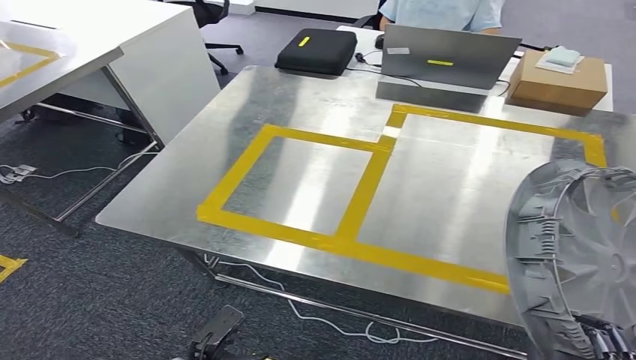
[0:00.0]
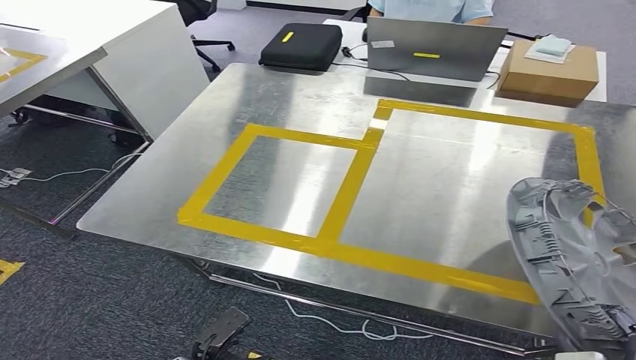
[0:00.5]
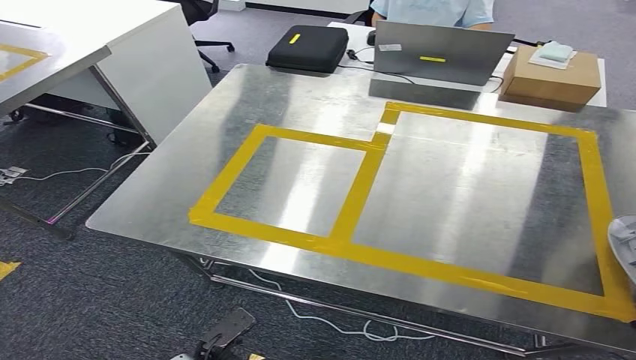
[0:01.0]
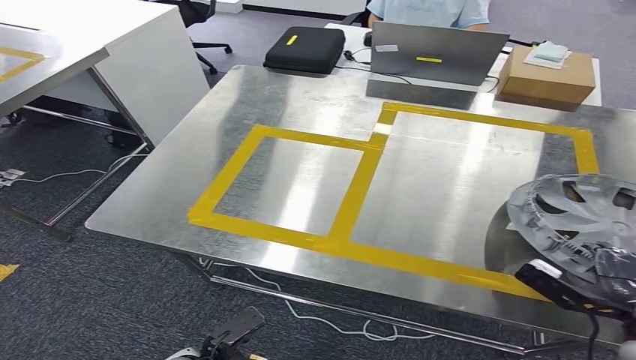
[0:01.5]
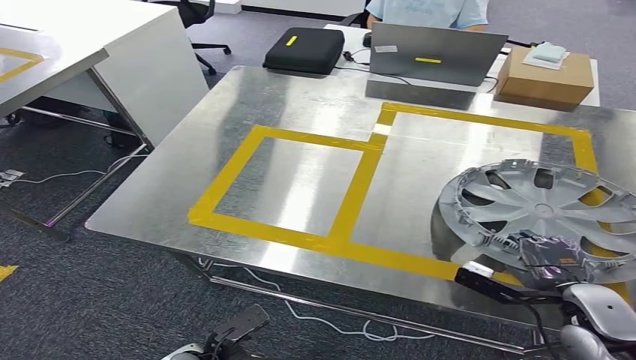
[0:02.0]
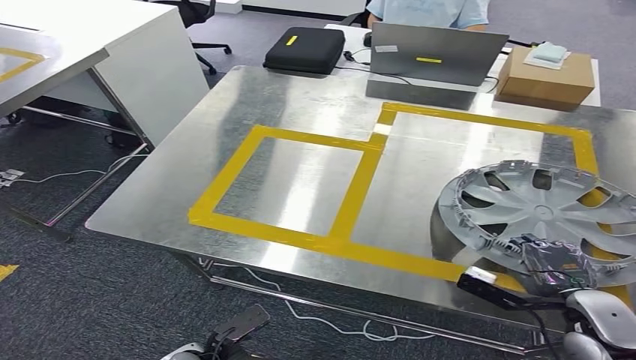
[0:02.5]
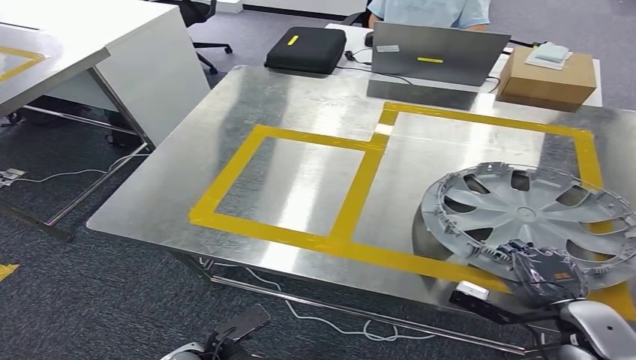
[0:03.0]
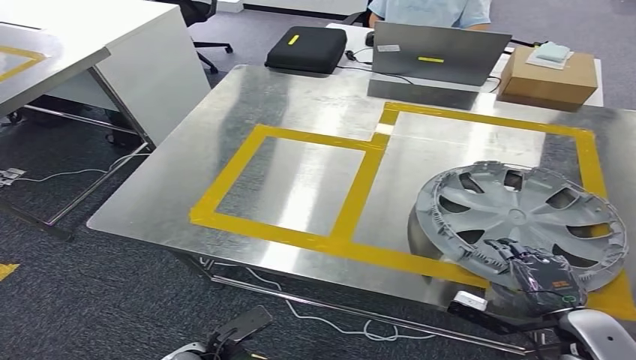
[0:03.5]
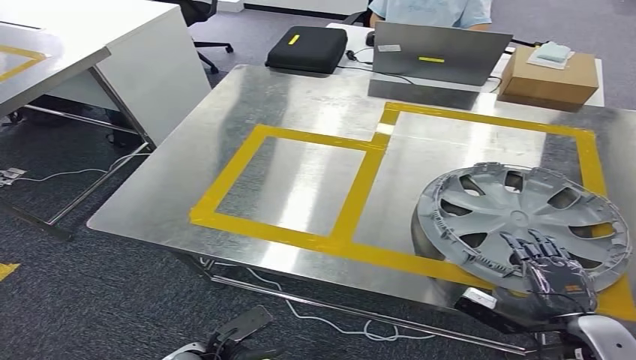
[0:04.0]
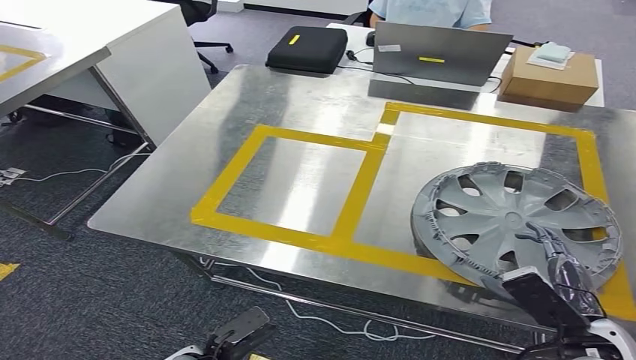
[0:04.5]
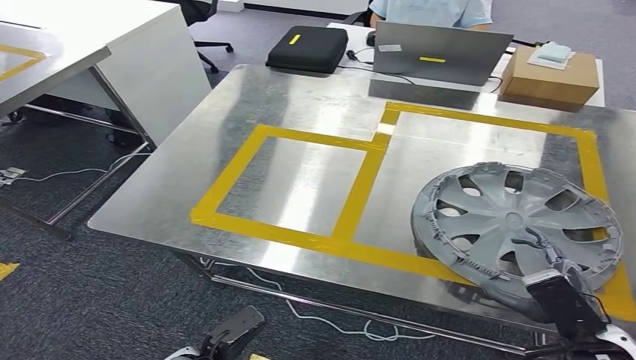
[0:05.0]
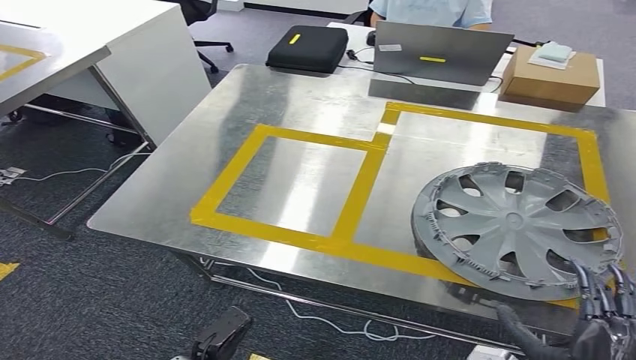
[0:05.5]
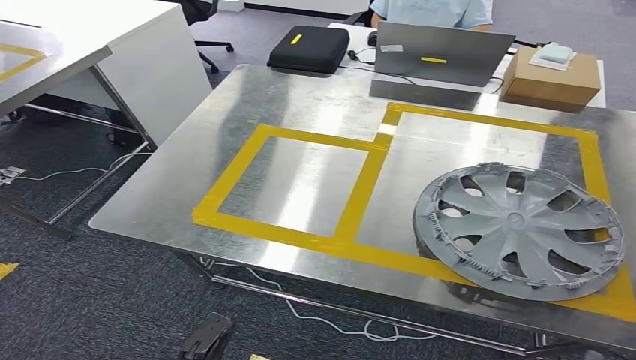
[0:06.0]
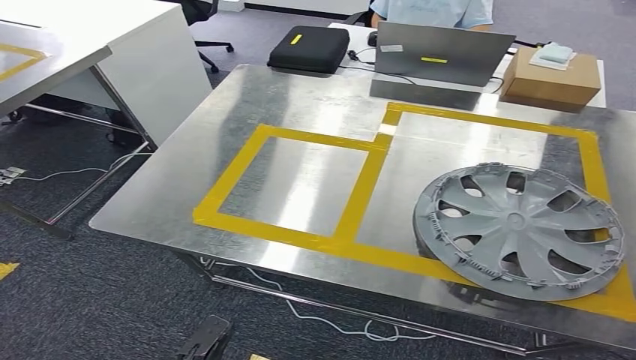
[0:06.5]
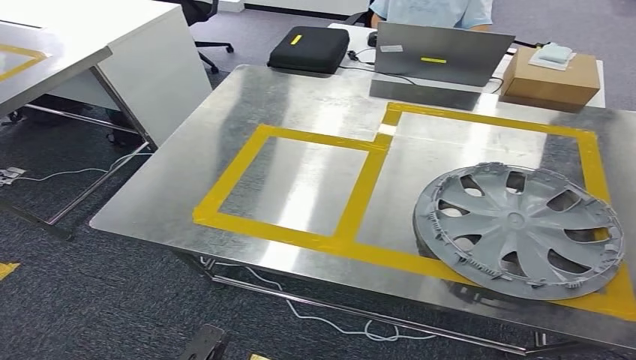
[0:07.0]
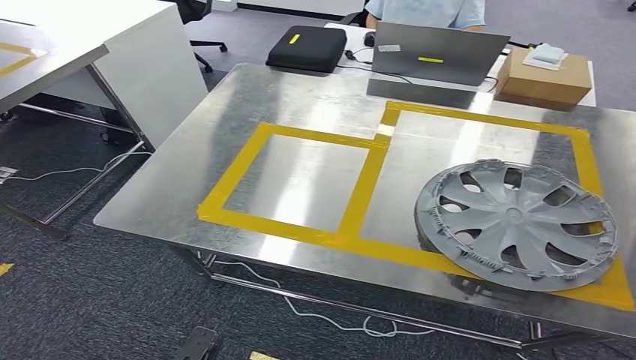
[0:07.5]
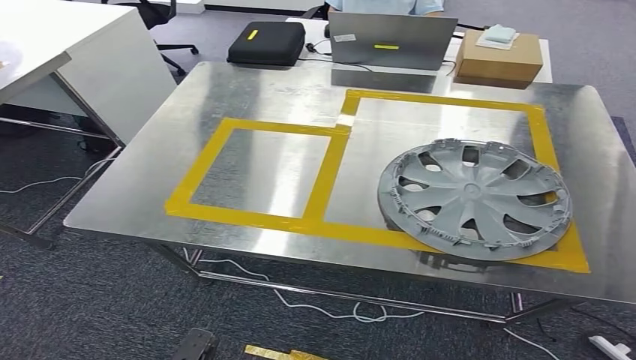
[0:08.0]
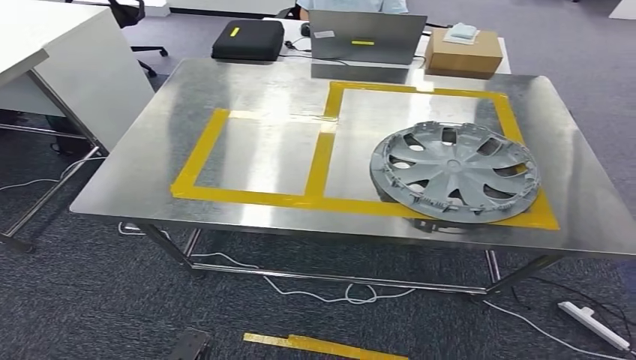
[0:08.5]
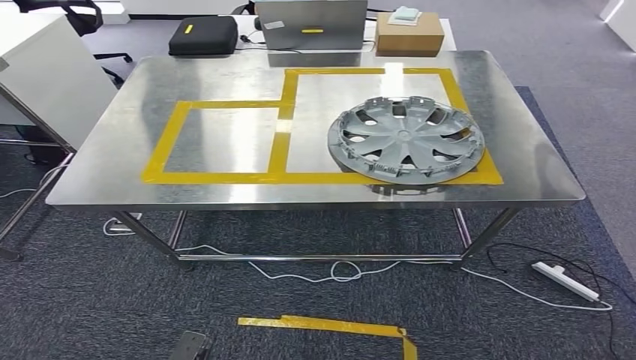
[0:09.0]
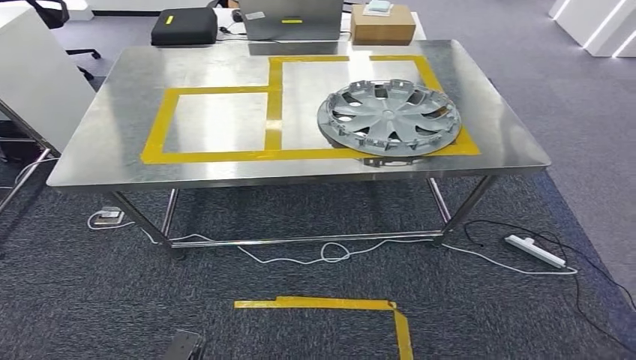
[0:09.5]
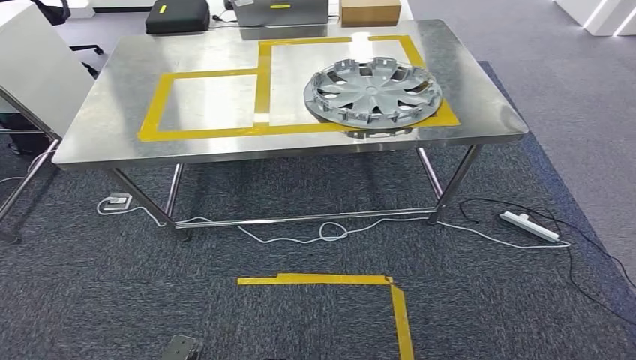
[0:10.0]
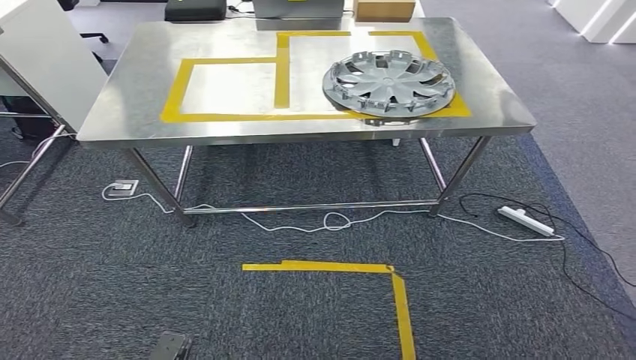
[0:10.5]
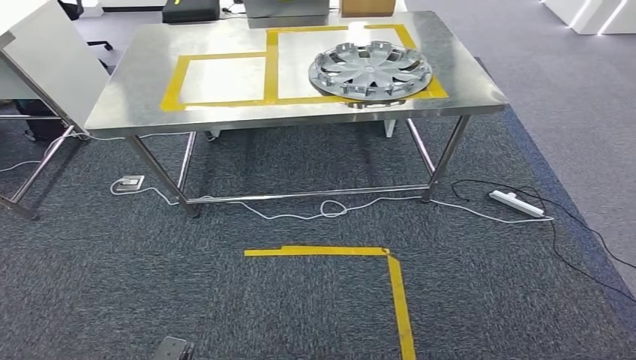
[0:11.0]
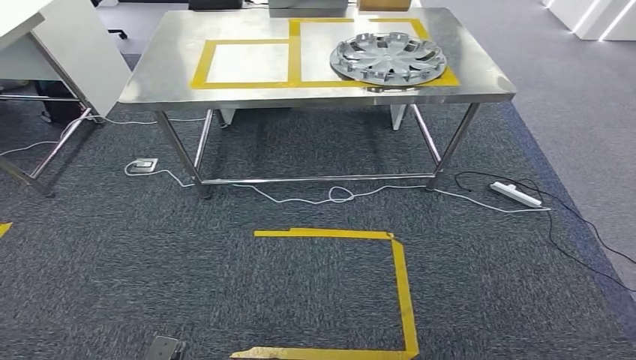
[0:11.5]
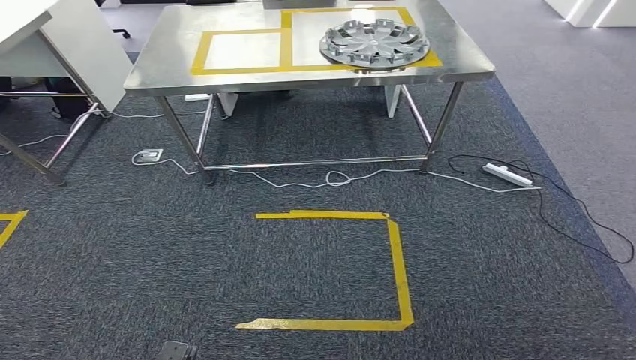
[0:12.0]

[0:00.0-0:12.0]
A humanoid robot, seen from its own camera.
Step, 0:00.0 to 0:11.0: Insert the small parts into the corresponding holes on the workbench.
0:02.0 to 0:04.0: There are only small adjustments of the hands.
0:04.0 to 0:06.0: The right hand travels backward by some 15 cm; the left hand ends up approximately 5 cm from where it was.

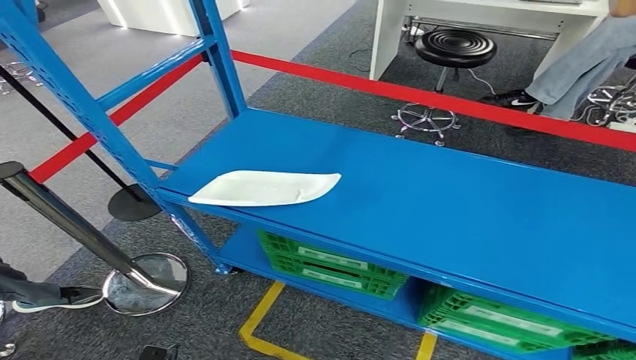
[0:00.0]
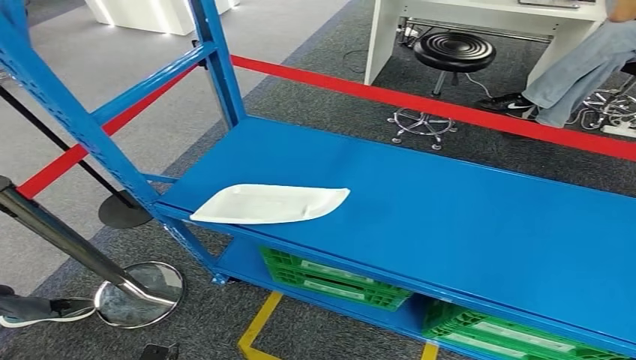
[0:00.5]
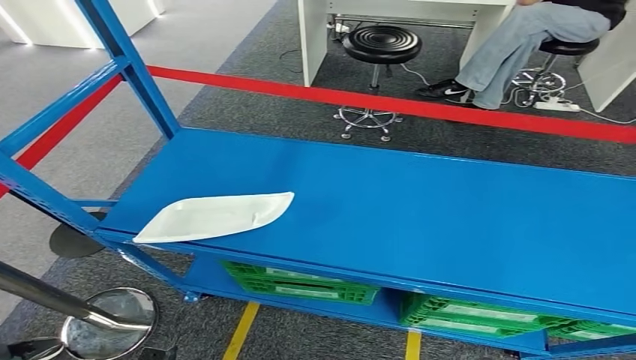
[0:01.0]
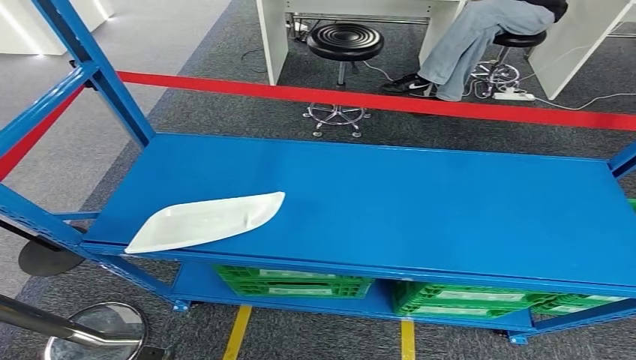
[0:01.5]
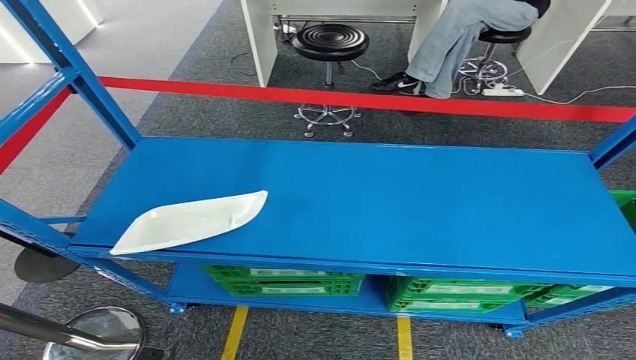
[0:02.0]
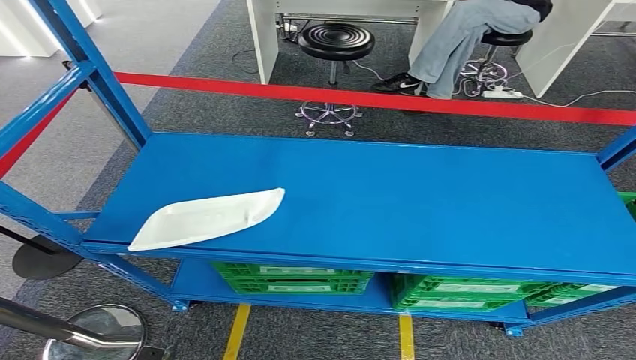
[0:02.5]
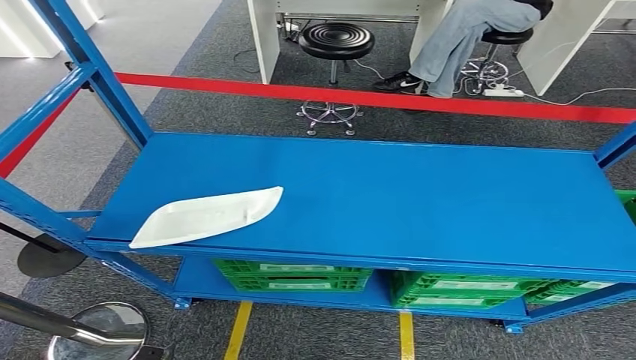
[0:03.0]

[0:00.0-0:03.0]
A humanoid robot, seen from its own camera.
Step, 0:00.0 to 0:03.0: Move to the initial position at the workbench.
0:01.5 to 0:03.0: Neither hand changes place.
